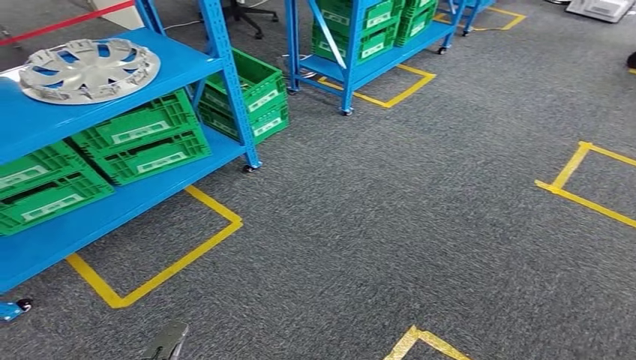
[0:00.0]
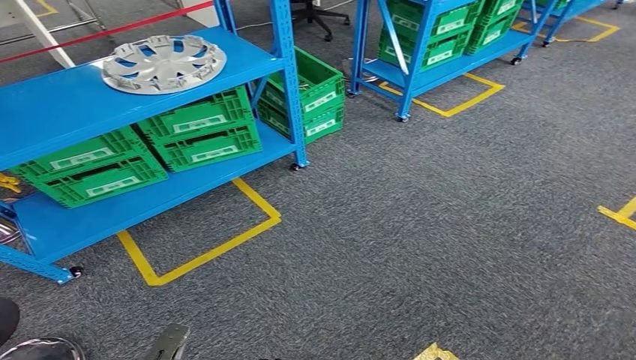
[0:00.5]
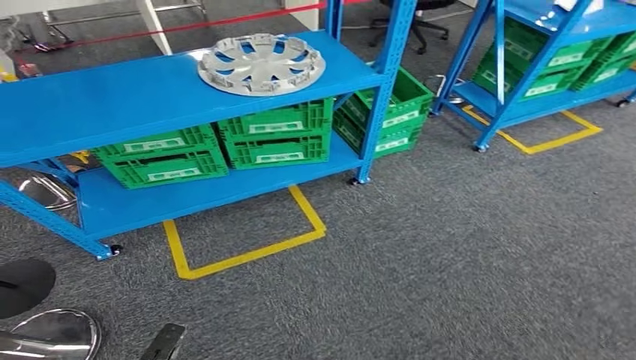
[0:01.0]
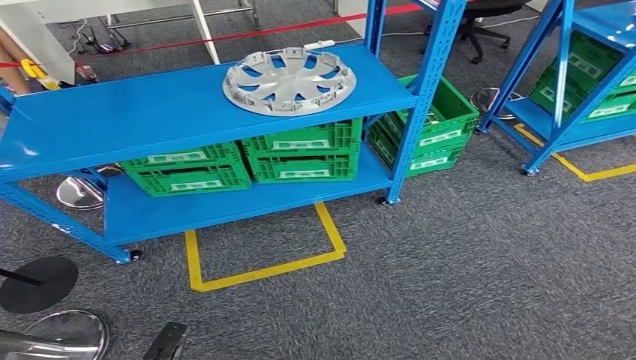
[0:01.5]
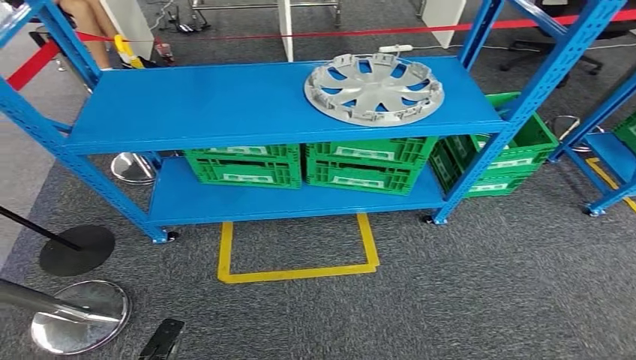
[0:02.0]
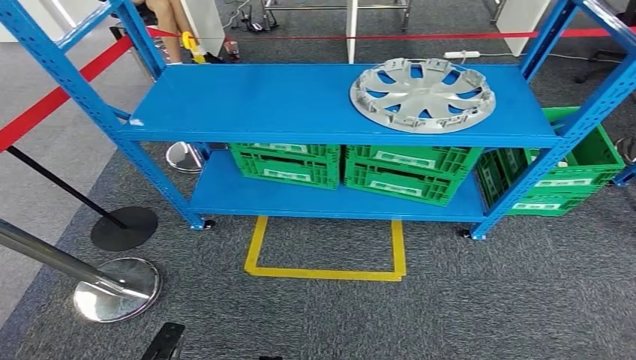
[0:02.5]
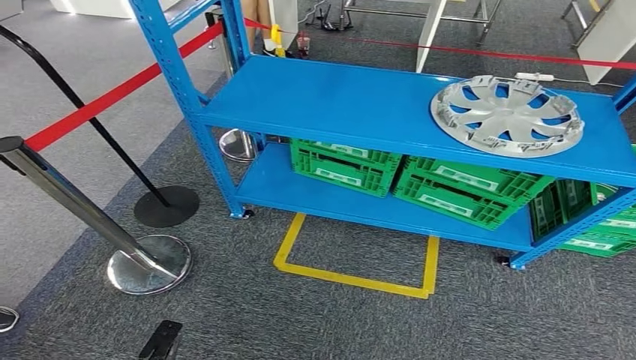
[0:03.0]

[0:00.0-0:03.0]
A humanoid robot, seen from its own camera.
Step, 0:00.0 to 0:03.0: Return to the initial position at the workbench.
